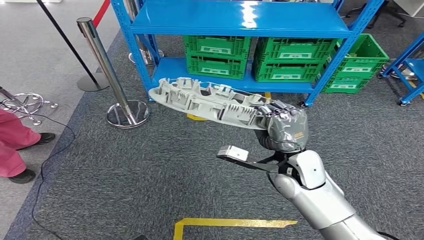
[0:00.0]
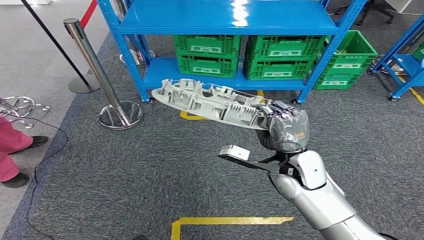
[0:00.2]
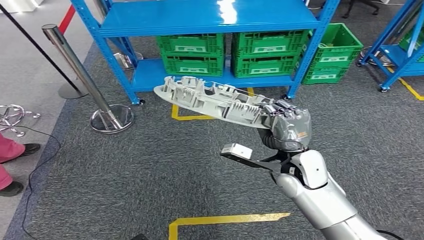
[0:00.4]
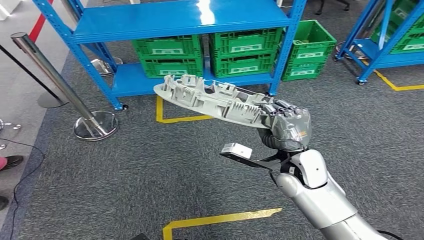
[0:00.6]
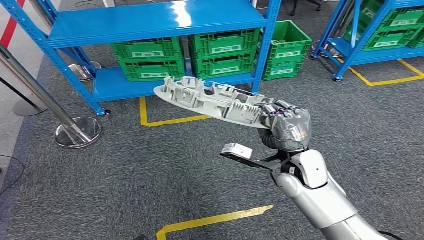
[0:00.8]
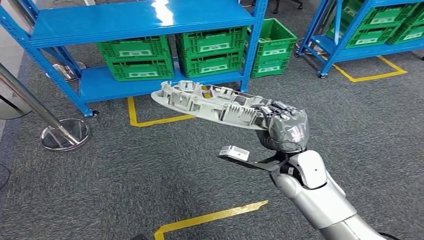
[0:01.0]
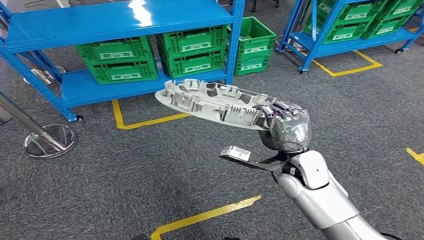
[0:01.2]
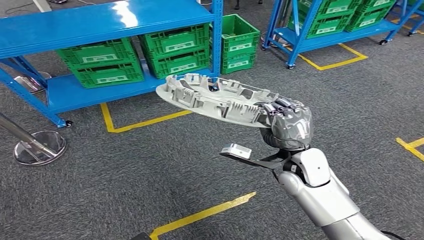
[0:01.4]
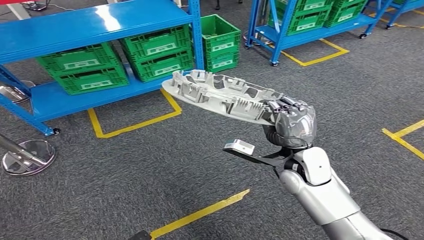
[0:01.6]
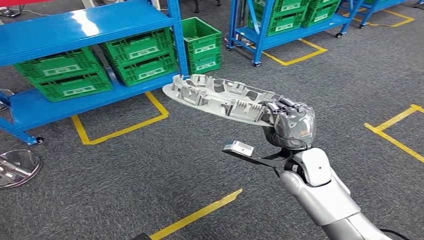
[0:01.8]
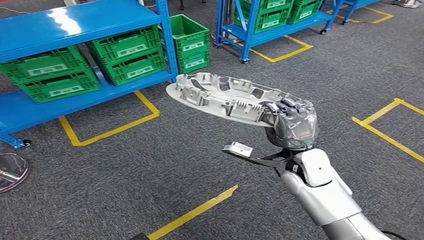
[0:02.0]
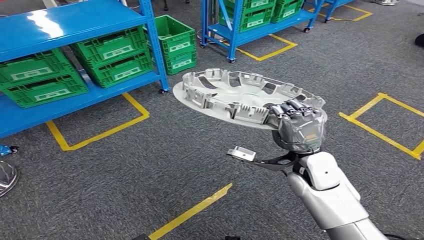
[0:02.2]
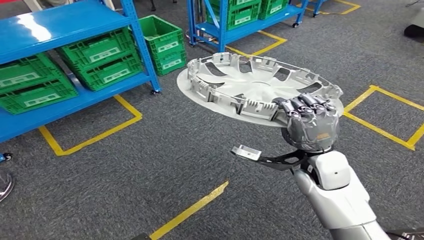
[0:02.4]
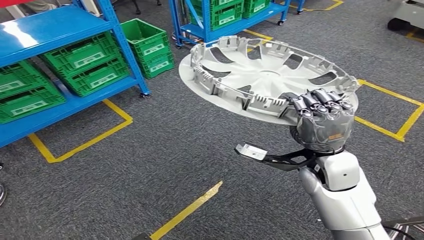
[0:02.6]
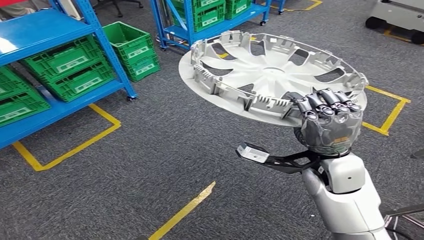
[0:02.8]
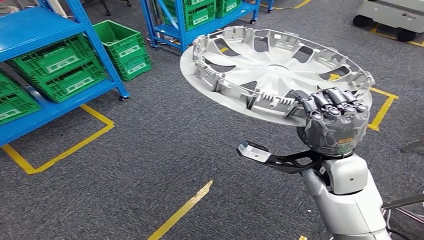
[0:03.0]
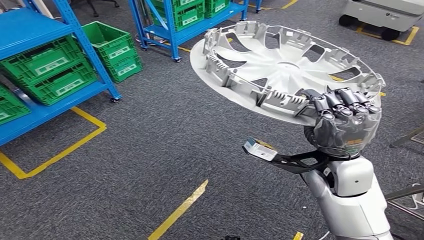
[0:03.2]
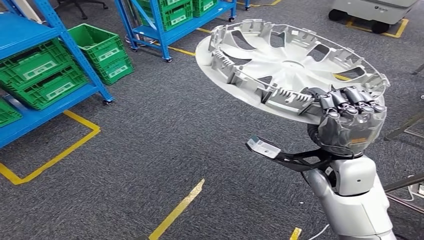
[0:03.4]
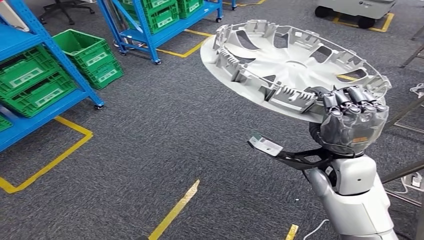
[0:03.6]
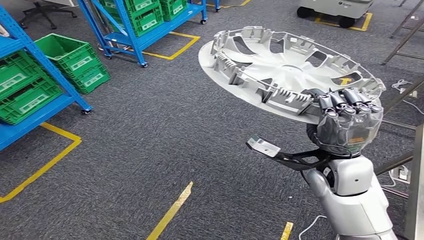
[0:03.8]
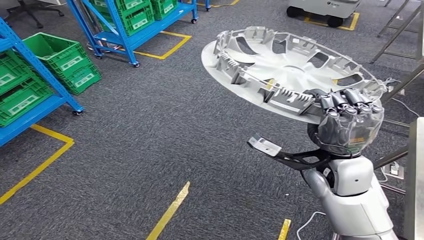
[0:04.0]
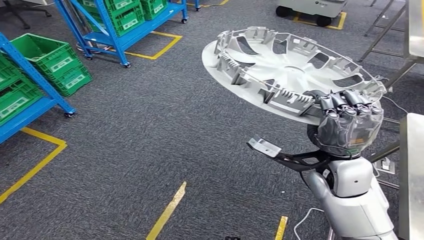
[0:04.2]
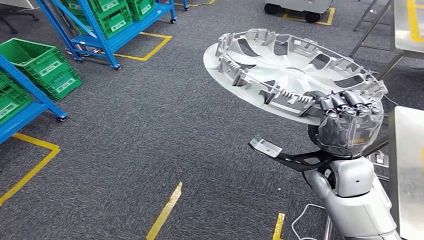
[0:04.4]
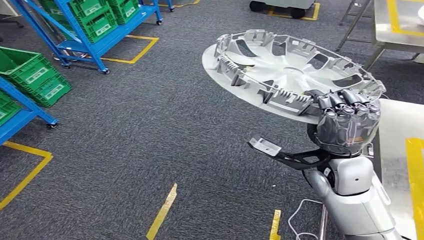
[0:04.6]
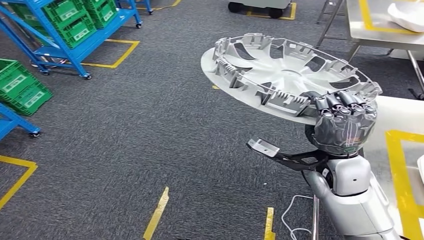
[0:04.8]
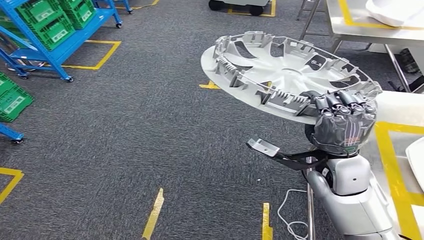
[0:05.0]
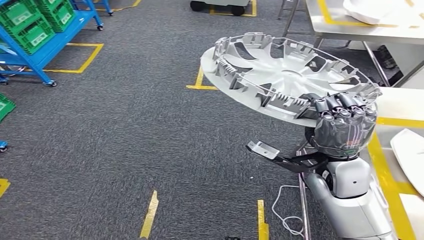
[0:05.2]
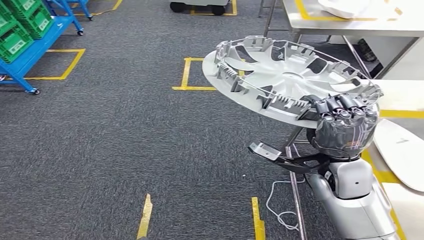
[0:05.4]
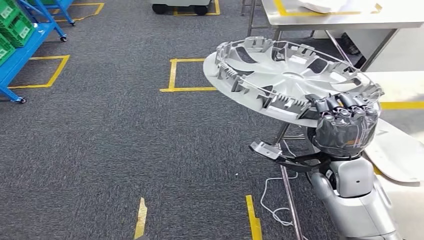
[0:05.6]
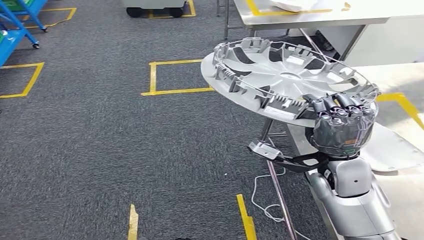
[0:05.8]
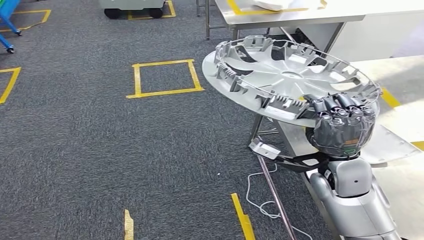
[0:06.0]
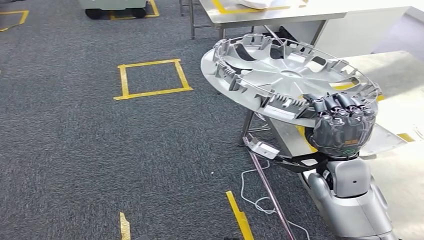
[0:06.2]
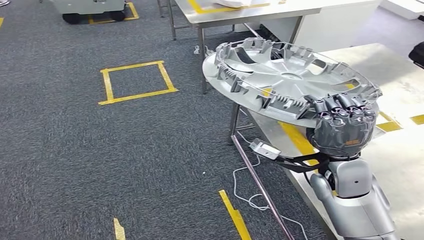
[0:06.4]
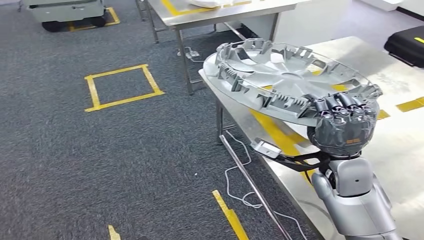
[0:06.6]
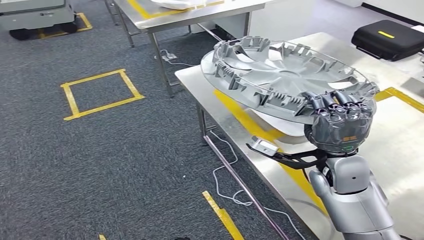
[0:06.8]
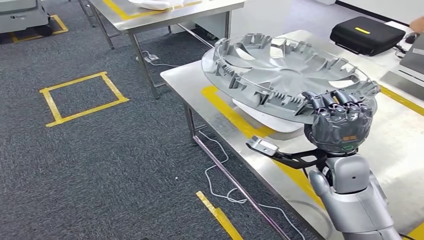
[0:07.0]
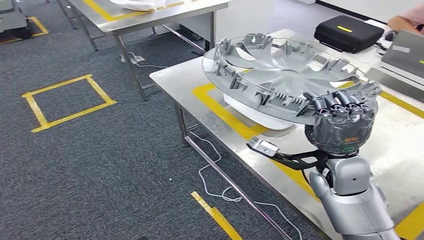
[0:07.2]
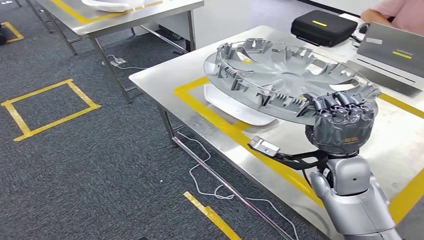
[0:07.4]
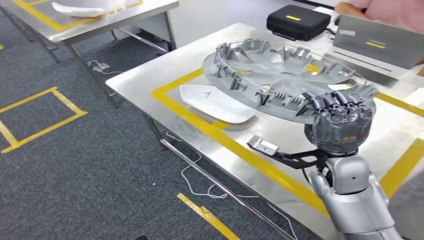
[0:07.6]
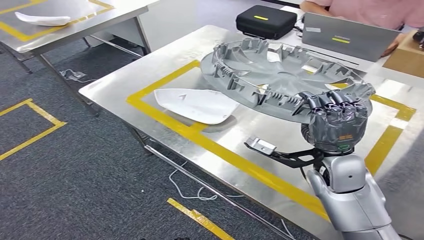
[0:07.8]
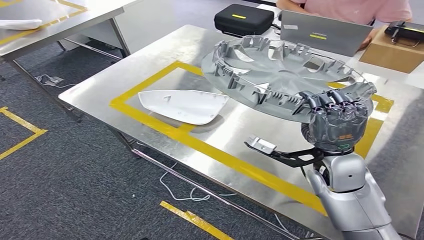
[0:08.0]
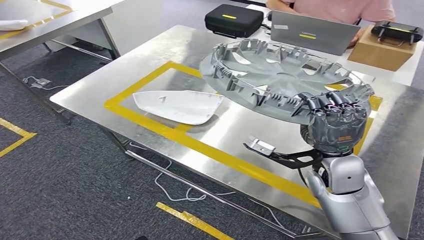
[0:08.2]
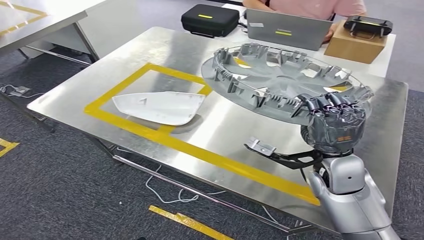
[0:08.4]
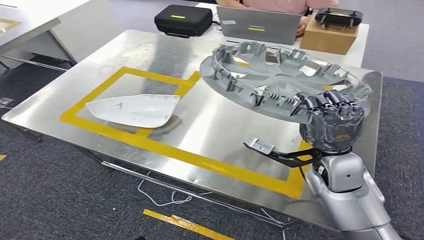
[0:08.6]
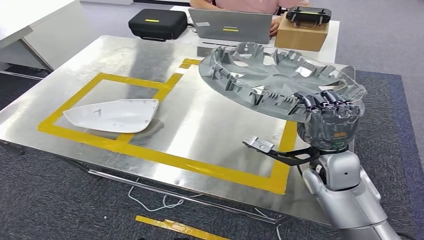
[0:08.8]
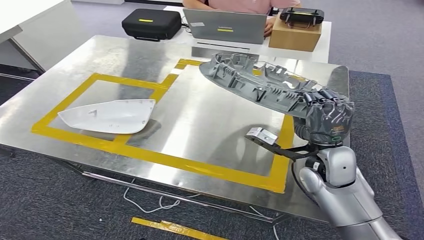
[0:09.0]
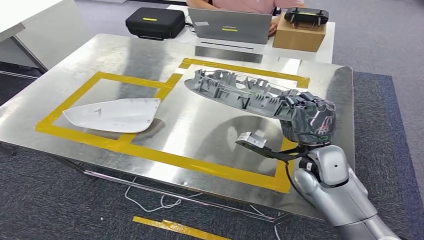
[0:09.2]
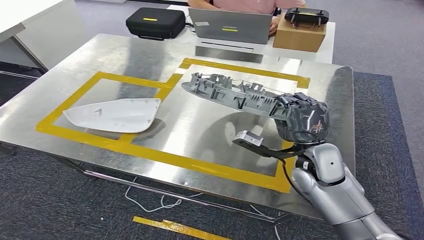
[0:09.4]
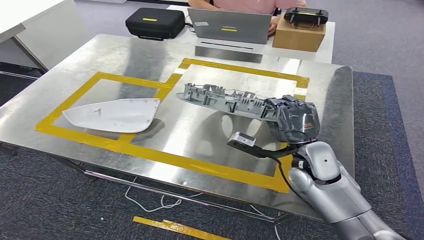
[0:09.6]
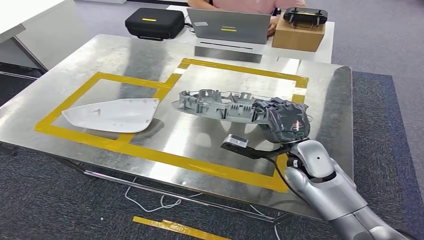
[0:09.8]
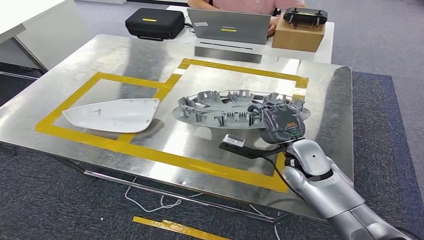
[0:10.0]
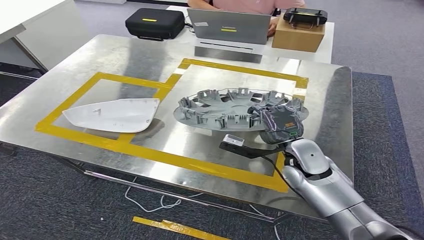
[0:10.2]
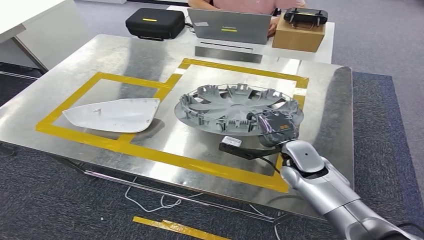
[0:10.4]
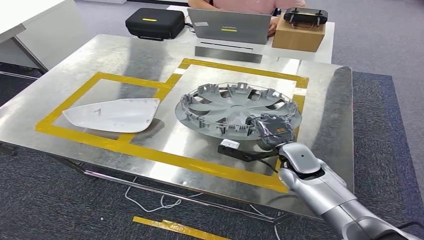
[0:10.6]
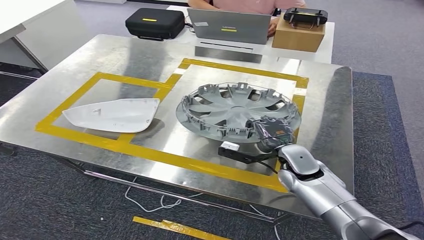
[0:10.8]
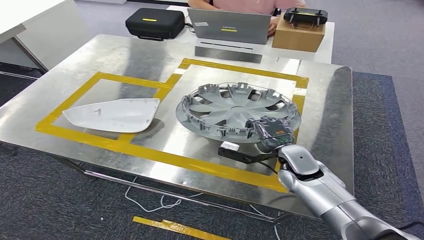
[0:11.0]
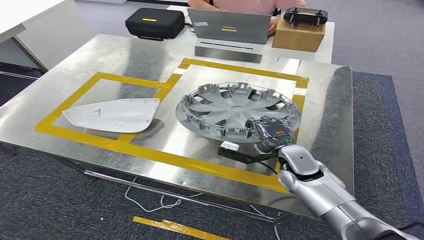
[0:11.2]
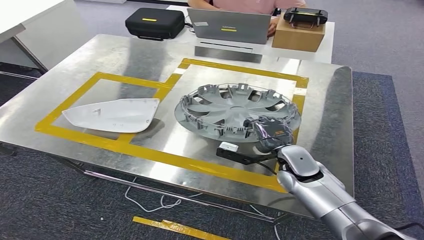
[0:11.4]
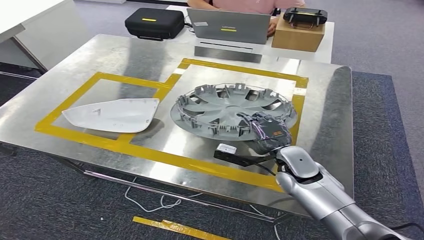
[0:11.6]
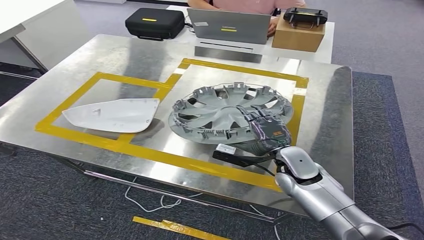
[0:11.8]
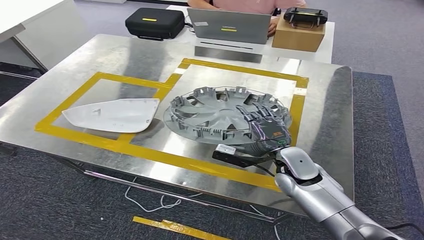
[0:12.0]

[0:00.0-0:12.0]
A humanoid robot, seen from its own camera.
Step, 0:00.0 to 0:07.0: Move the small component to the workbench.
0:10.4 to 0:12.0: The hands stay close to where they were, moving slightly.

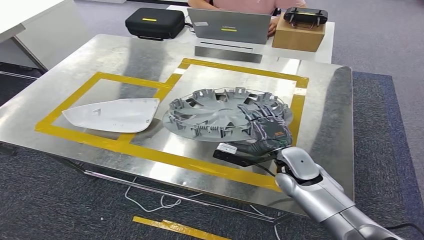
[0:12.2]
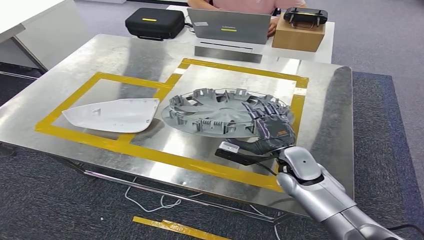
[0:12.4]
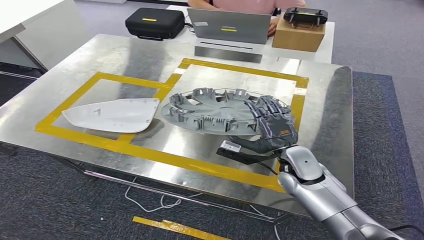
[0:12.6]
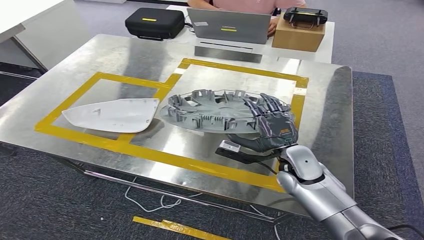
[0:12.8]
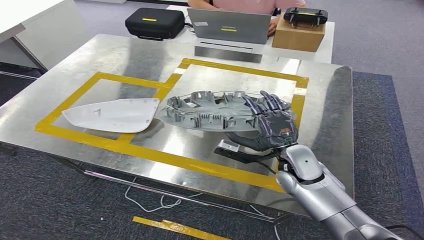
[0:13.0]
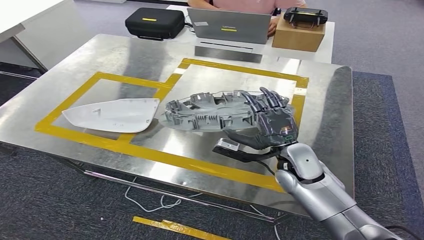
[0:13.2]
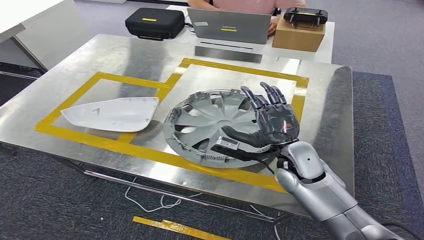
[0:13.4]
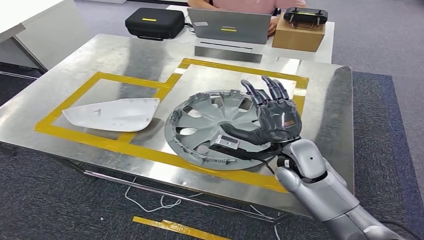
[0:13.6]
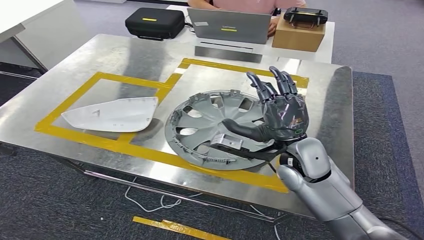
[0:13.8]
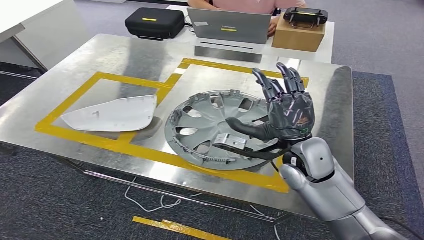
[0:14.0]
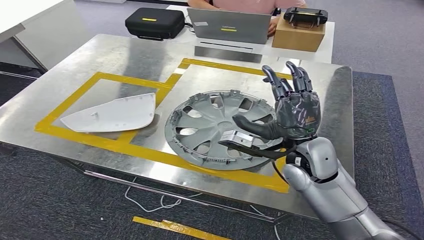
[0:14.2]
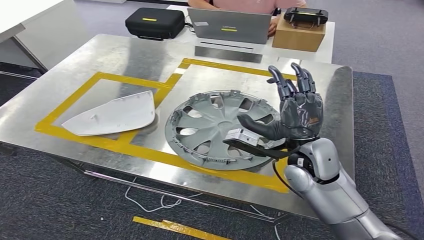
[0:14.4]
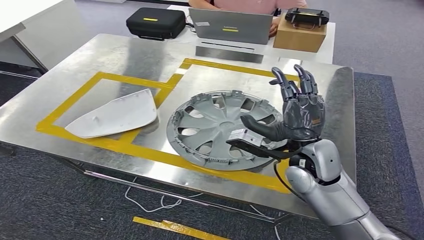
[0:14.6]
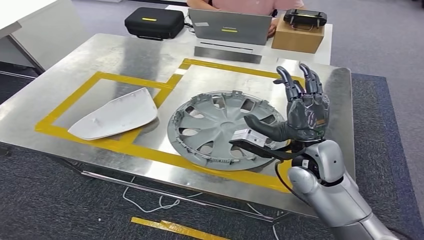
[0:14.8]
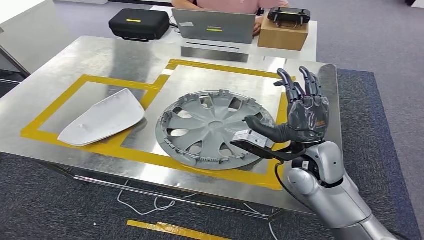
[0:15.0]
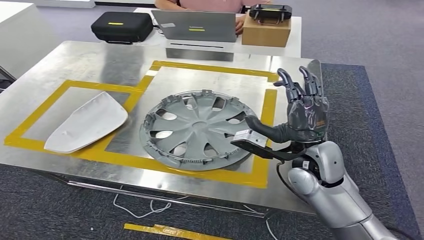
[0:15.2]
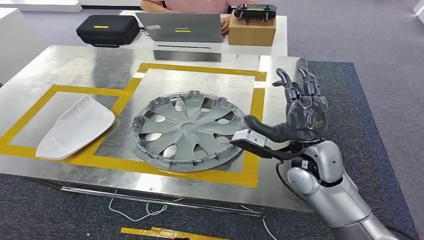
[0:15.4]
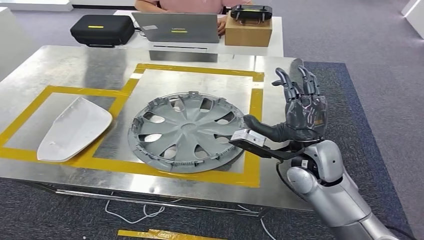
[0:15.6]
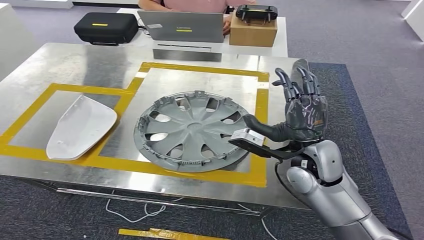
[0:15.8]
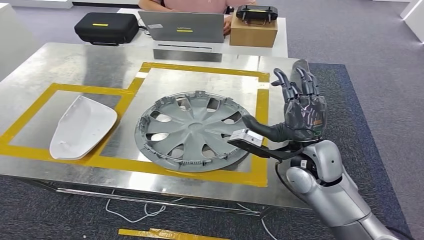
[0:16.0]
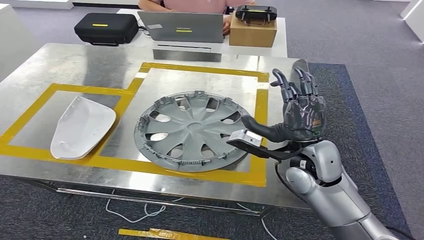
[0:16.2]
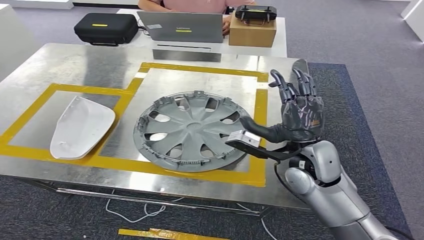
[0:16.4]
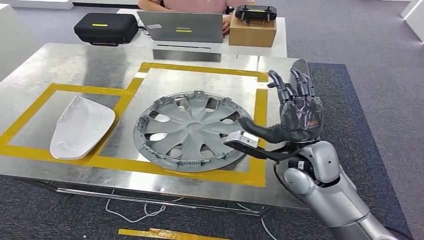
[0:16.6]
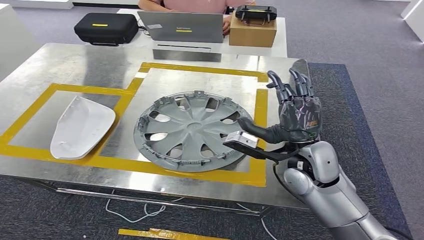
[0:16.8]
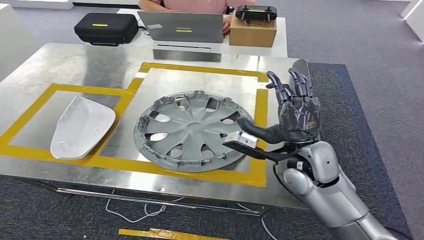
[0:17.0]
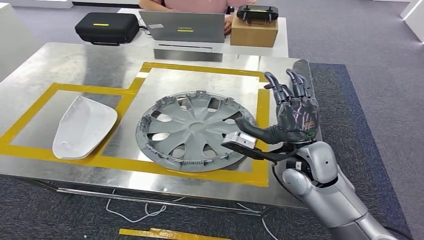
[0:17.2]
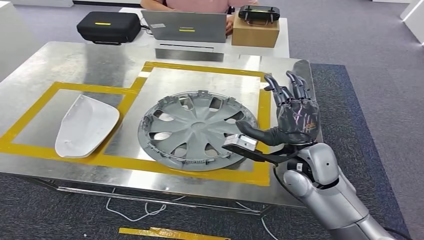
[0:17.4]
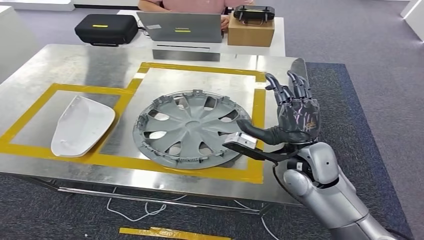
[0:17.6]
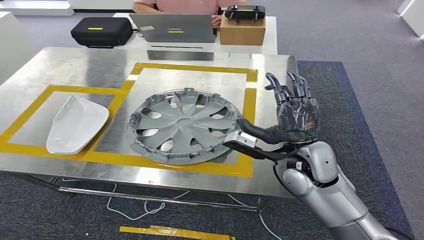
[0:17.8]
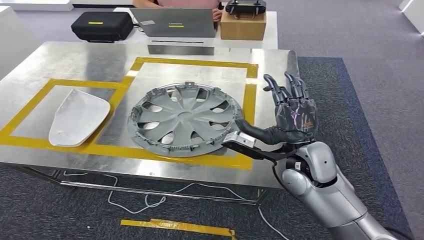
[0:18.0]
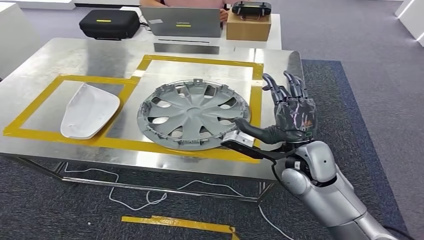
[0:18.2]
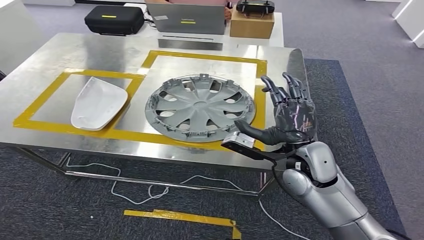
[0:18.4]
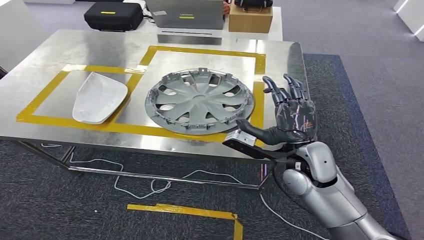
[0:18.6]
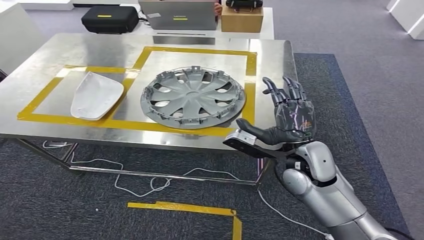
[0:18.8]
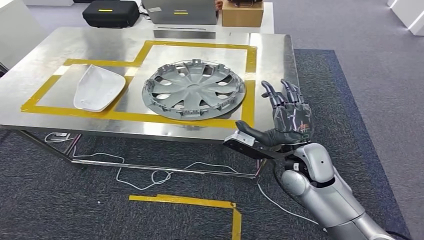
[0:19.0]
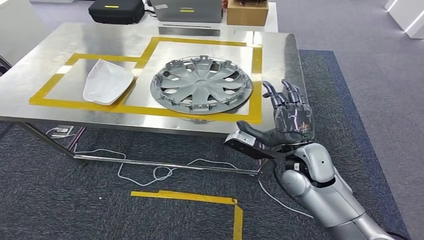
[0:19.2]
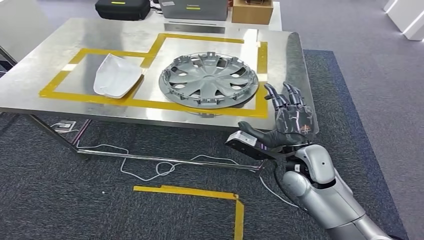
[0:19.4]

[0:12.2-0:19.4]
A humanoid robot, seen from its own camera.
0:12.2 to 0:13.6: The right hand goes about 5 cm upward.
